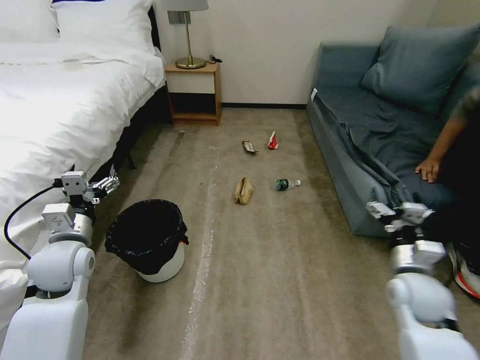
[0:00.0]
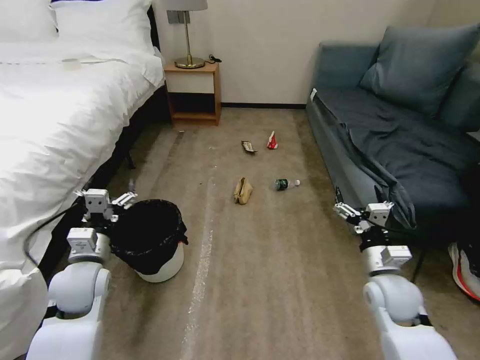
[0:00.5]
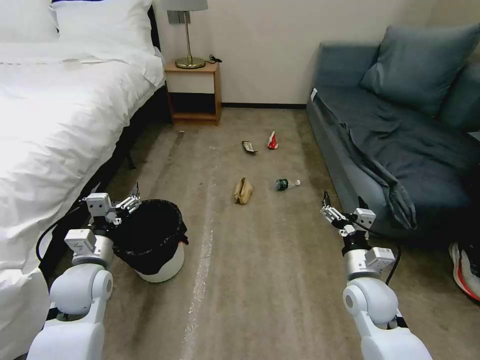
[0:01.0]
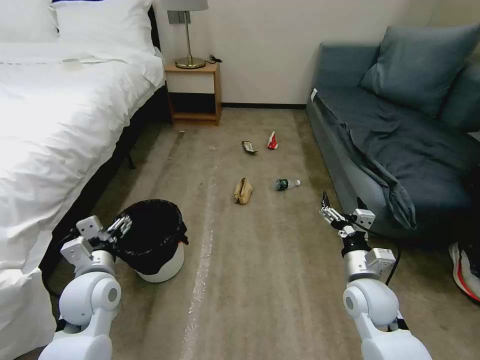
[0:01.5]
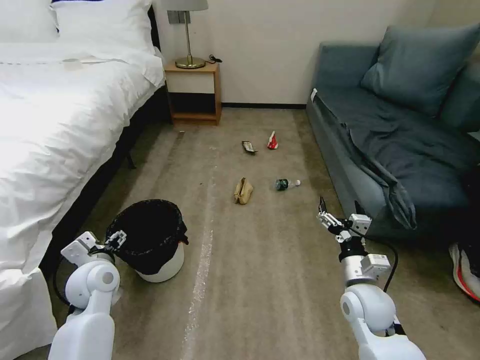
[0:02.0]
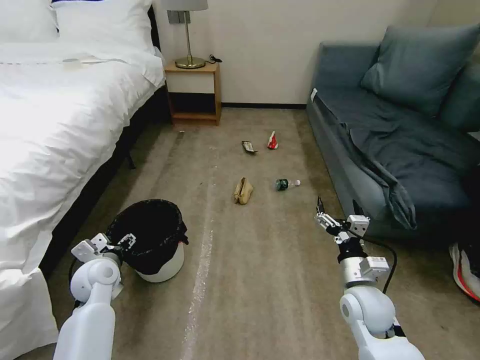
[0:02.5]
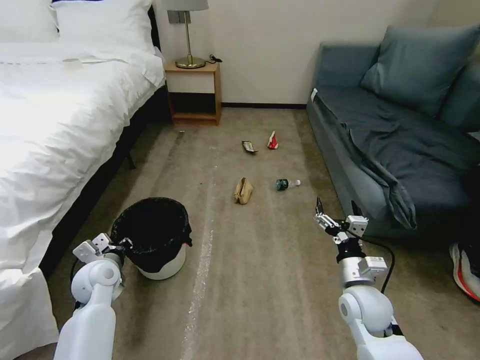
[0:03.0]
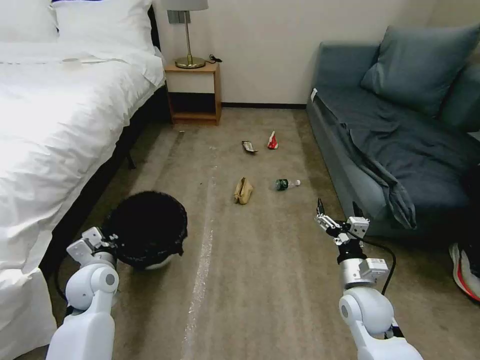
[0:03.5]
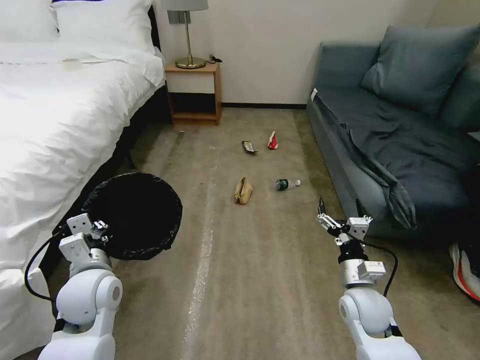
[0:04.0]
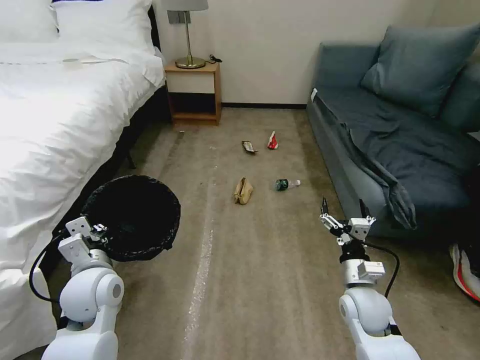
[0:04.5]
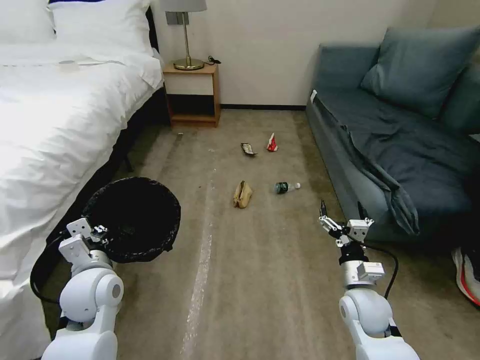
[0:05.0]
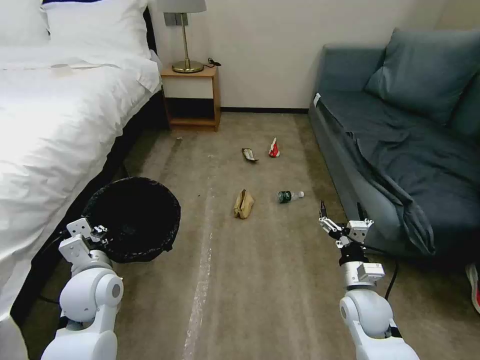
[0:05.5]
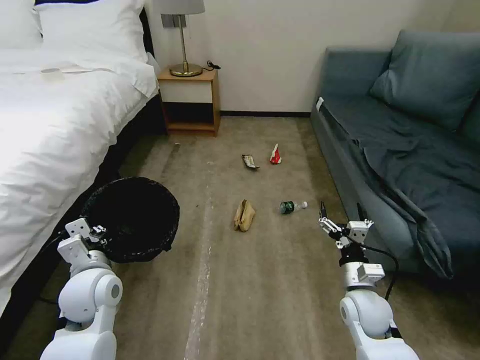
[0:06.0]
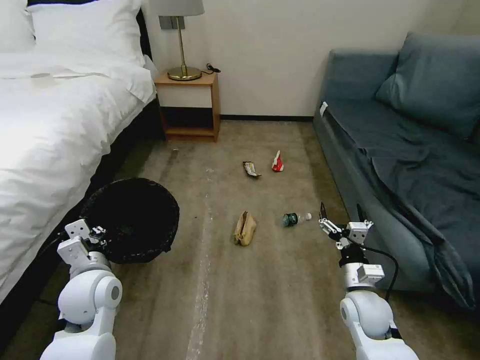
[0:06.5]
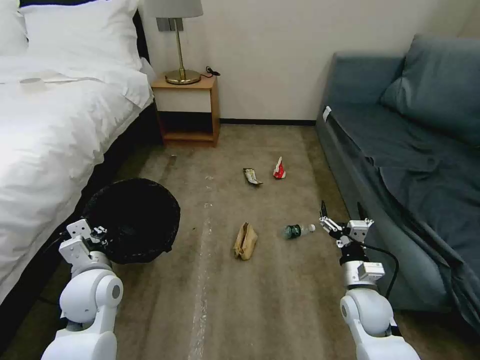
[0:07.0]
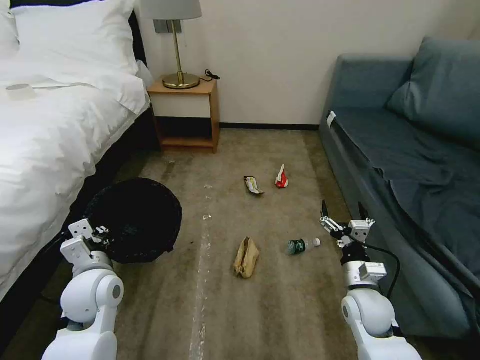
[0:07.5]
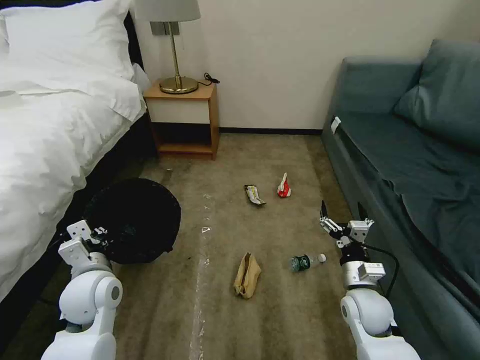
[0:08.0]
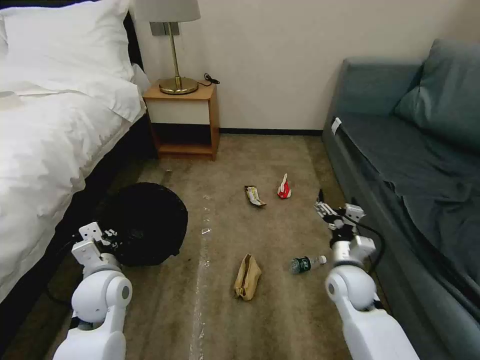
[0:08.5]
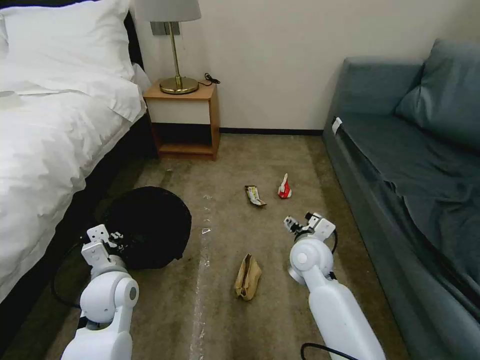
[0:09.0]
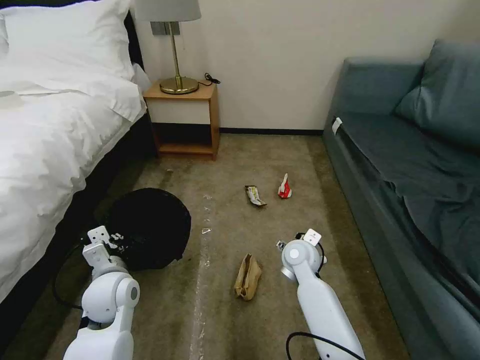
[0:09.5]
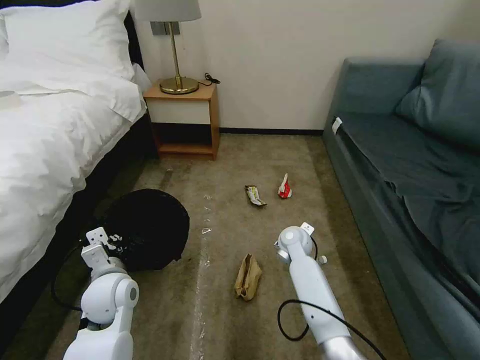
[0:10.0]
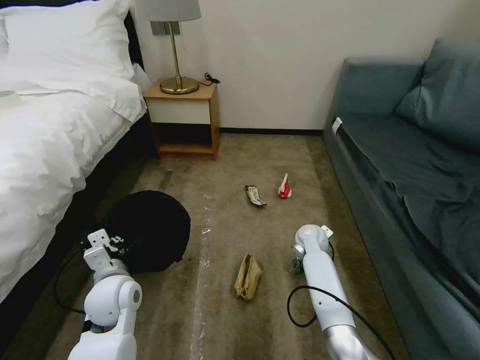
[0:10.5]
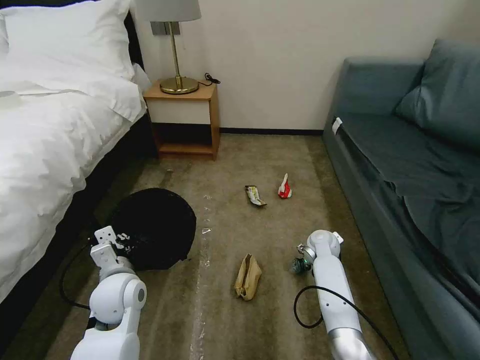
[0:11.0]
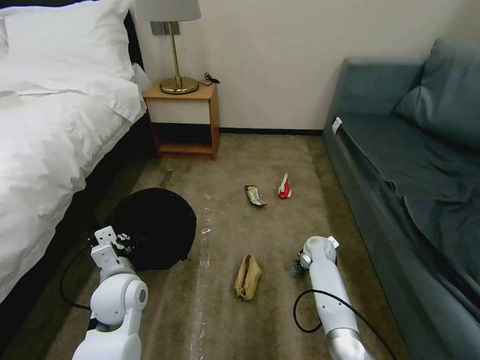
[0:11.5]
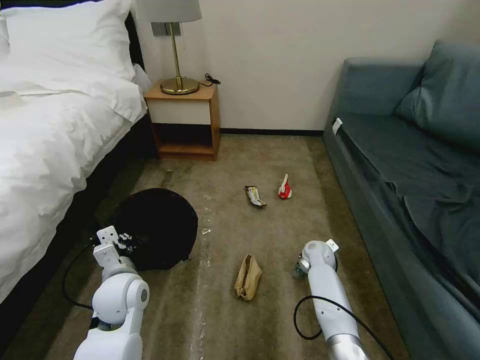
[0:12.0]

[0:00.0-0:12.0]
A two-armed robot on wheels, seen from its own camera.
Task of the whole recording: Pick up the trash bin, then pick up the garbage on the floor and place it into the trash bin.
0:02.0 to 0:04.0: The left gripper changes place by roughly 5 cm, and closes.
0:08.0 to 0:10.0: The right gripper heads forward and to the left, covering roughly 20 cm.
0:10.0 to 0:12.0: The right gripper moves to the right and downward, some 10 cm, and closes up.

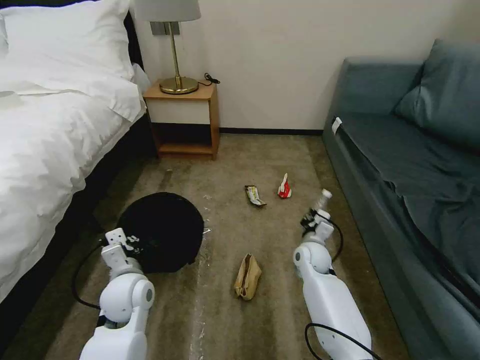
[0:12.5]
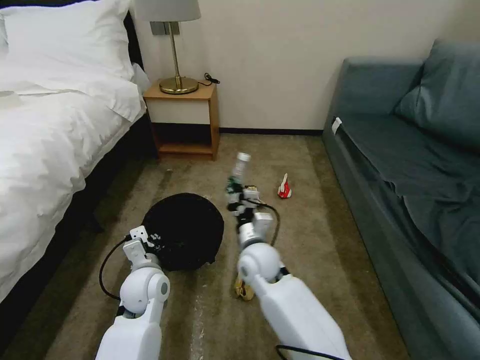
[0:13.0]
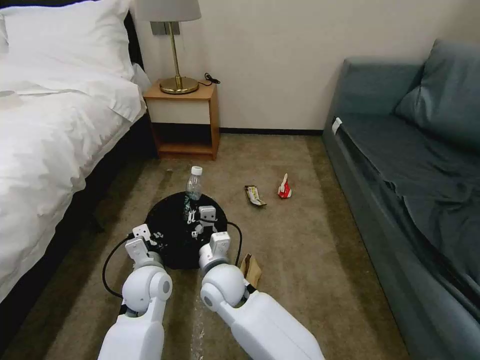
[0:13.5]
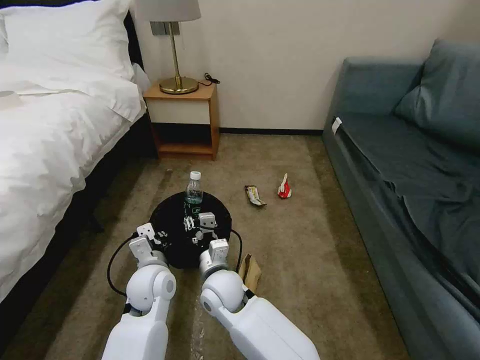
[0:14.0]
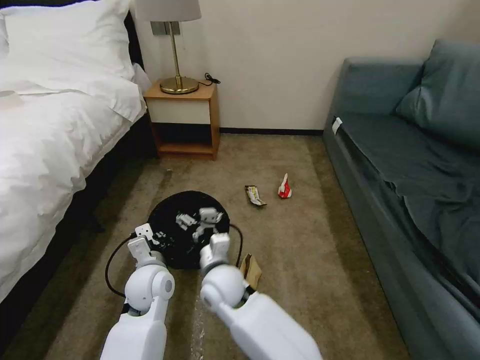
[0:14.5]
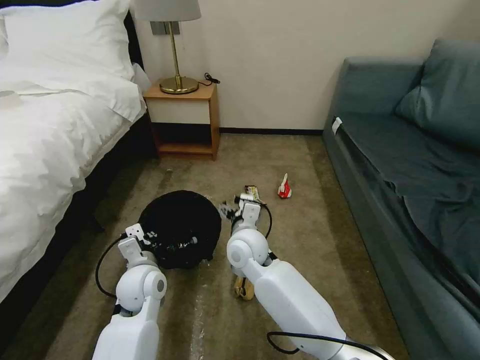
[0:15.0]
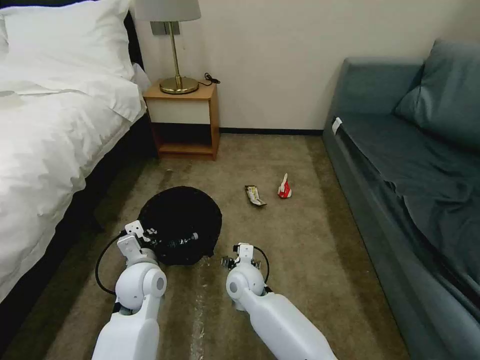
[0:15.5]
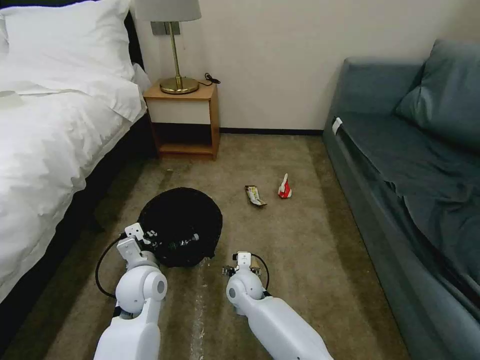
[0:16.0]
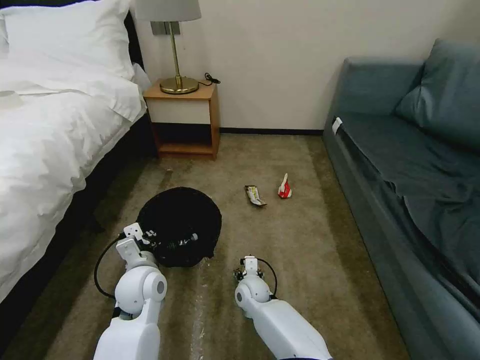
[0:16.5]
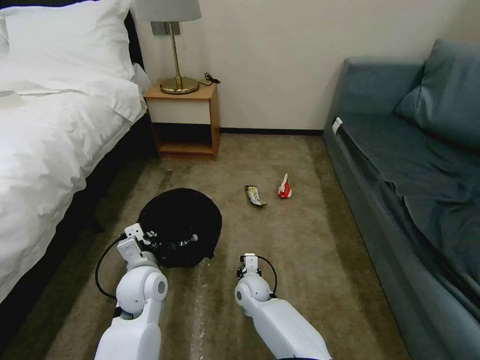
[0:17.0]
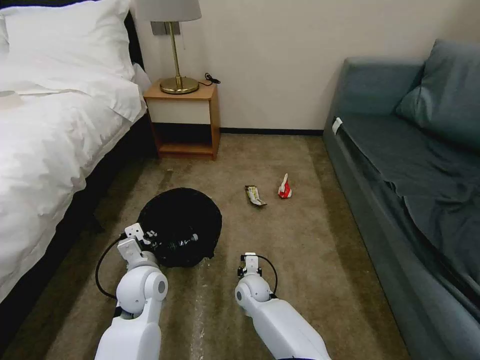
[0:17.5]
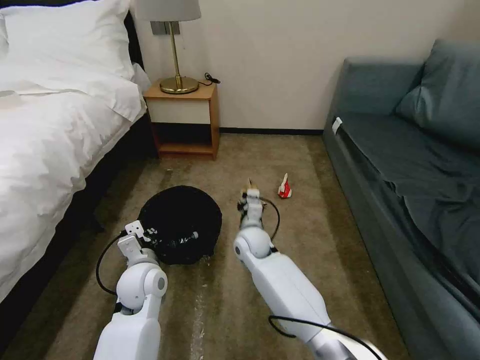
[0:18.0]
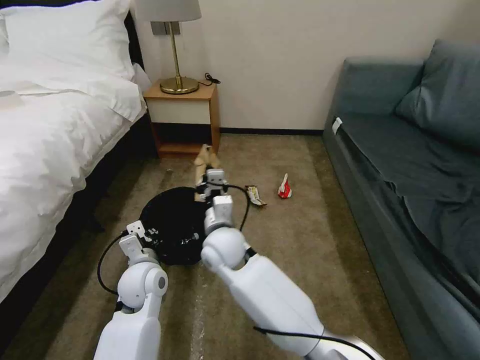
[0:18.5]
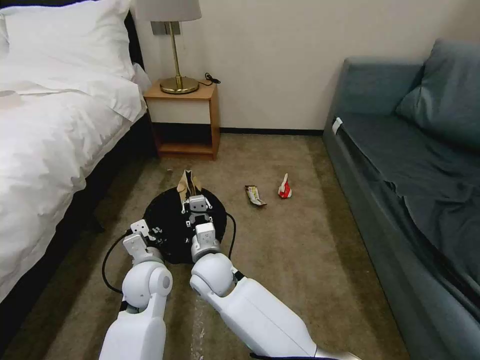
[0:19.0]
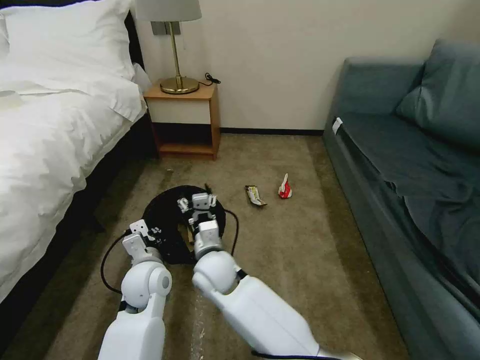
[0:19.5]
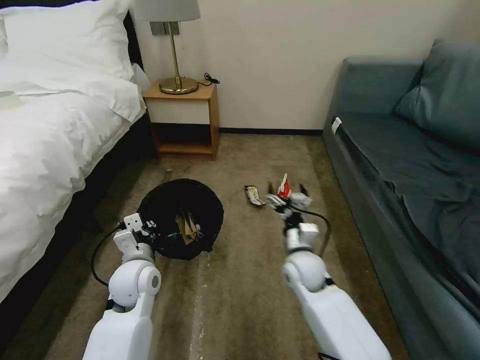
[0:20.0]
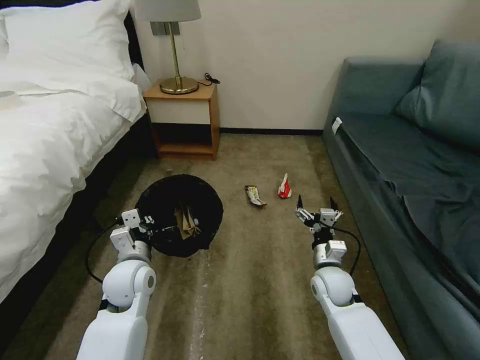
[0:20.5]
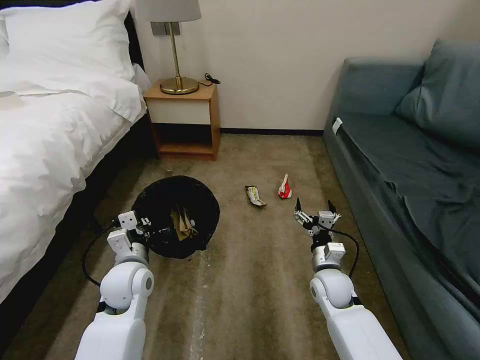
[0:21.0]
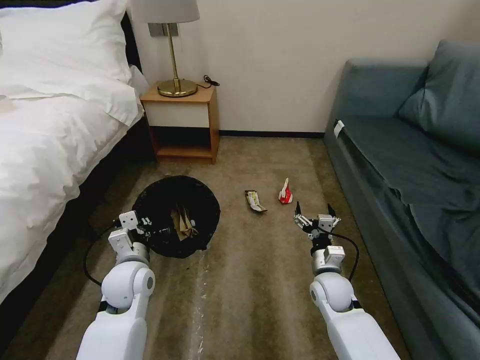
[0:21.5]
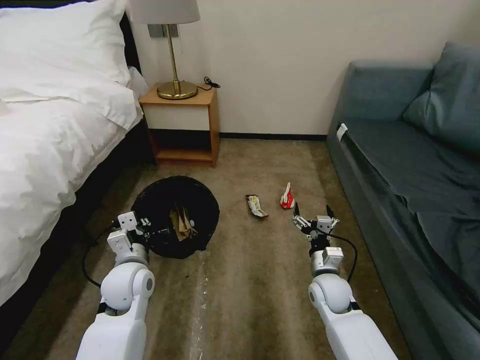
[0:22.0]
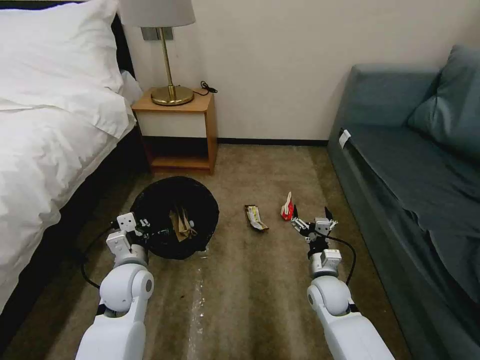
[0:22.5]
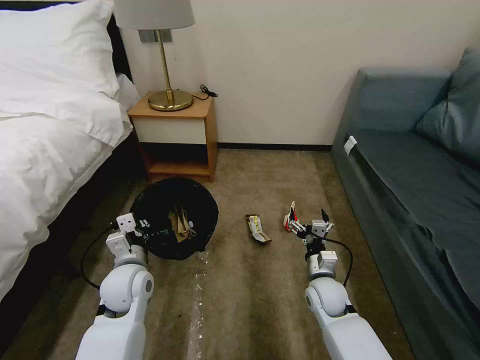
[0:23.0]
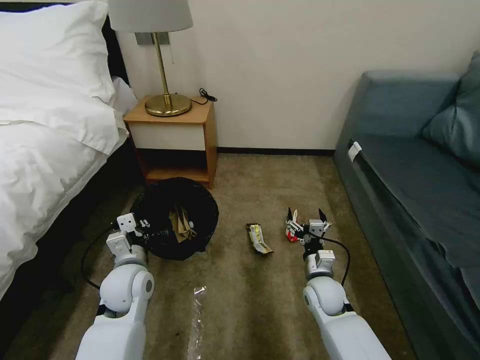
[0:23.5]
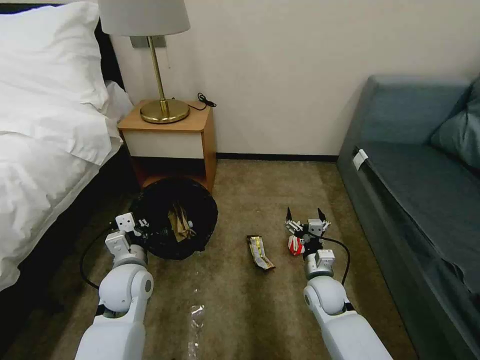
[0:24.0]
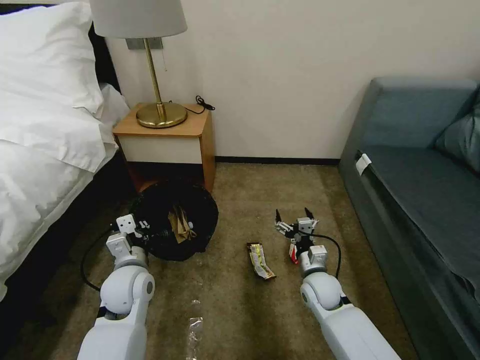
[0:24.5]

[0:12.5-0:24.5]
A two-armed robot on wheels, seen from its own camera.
Task of the whole recording: Pick up the trash bin, then pick up the garbage on the floor and place it into the trash bin.
0:12.5 to 0:14.5: The right gripper travels to the left and backward by about 25 cm, and opens.
0:14.5 to 0:16.5: The right gripper heads downward and to the right, covering about 20 cm.
0:16.5 to 0:18.5: The right gripper moves upward, about 20 cm, and closes its fingers.
0:18.5 to 0:20.5: The right gripper heads to the right and downward, covering about 30 cm, and opens.
0:20.5 to 0:22.5: The grippers make only small movements.

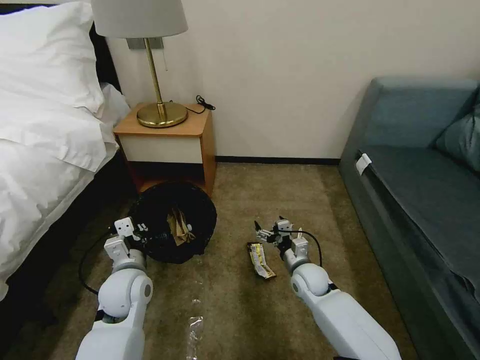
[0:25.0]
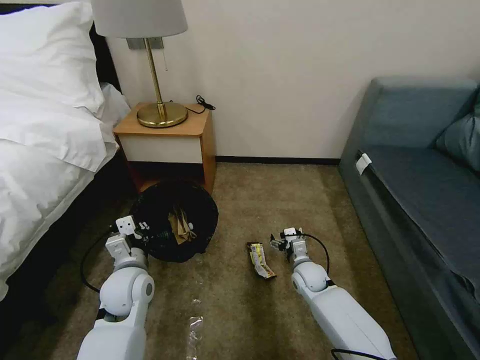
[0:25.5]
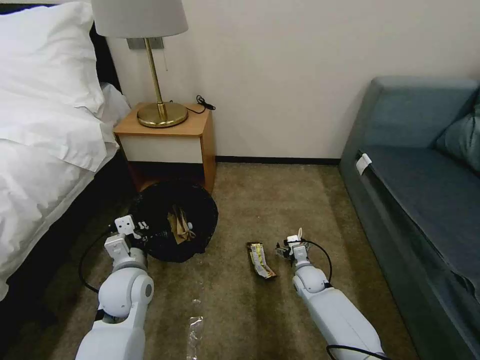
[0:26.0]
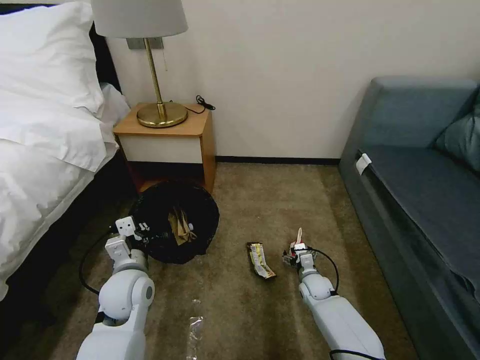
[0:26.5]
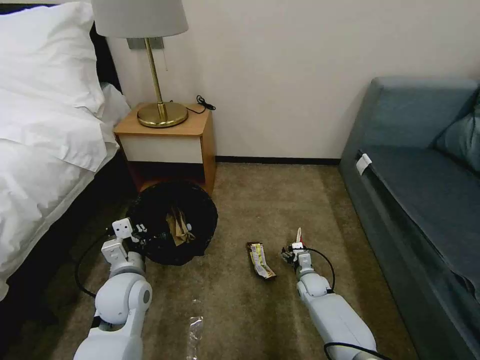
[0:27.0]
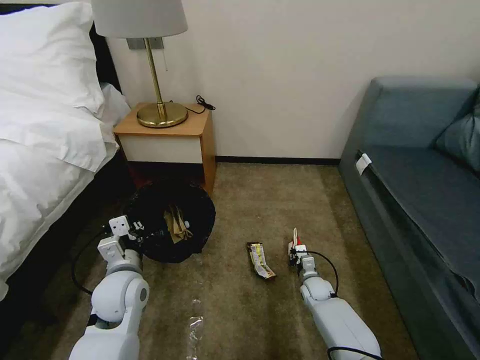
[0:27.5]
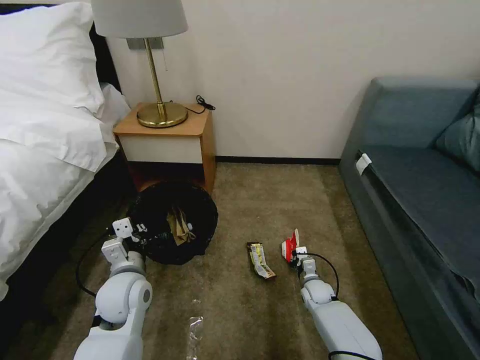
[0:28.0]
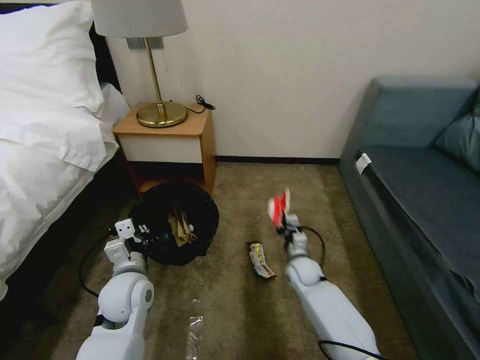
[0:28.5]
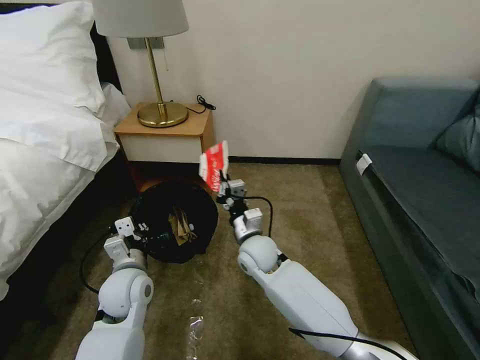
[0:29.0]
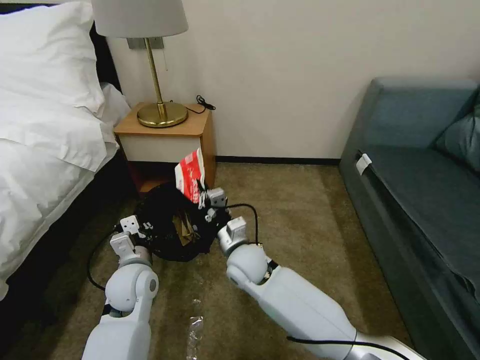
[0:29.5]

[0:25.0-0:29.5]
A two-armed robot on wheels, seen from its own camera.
Task of the whole recording: Pick up the trash bin, then pick up the garbage on the floor and place it into the trash bin.
0:25.0 to 0:27.0: The right gripper shifts about 10 cm downward.
0:27.0 to 0:29.5: The right gripper shifts about 30 cm to the left and upward, and closes up.
